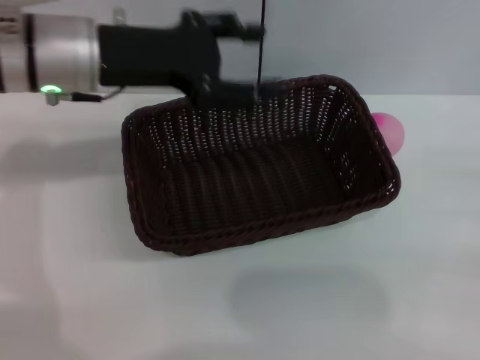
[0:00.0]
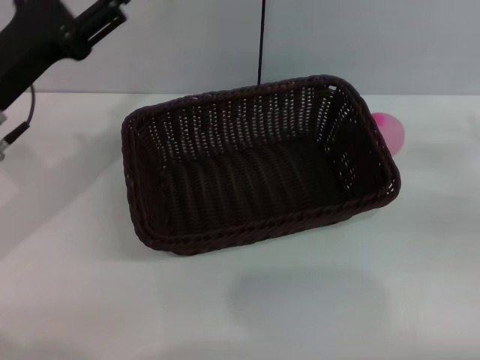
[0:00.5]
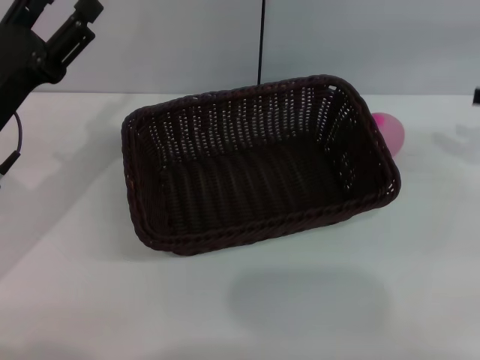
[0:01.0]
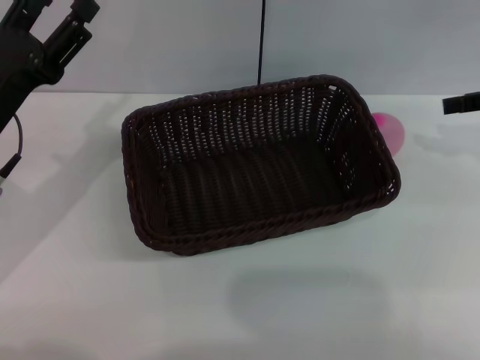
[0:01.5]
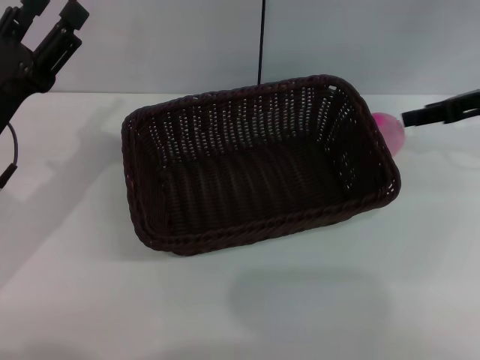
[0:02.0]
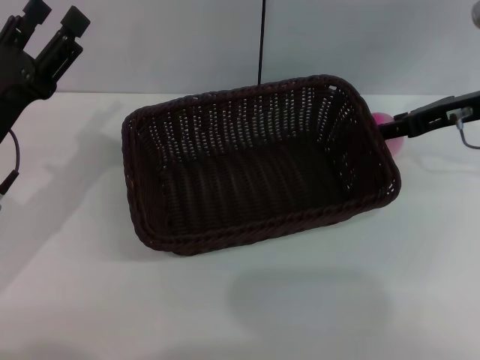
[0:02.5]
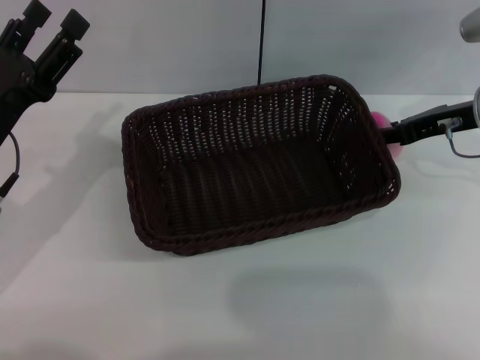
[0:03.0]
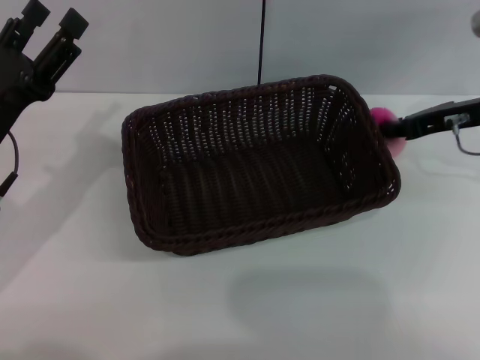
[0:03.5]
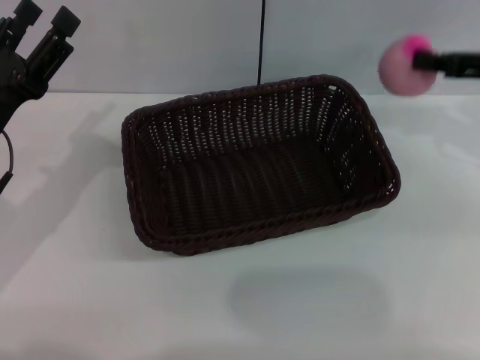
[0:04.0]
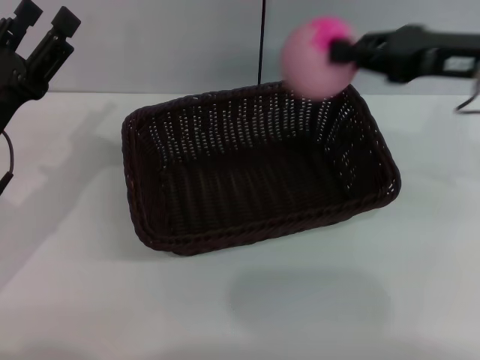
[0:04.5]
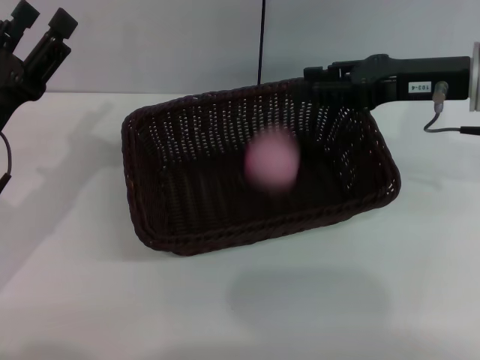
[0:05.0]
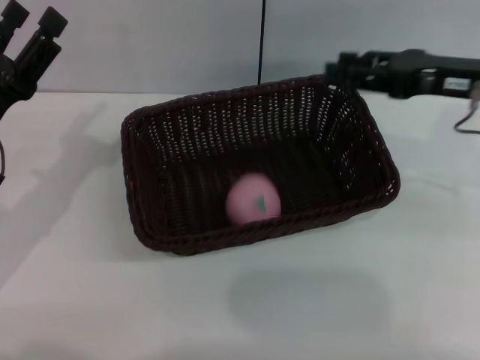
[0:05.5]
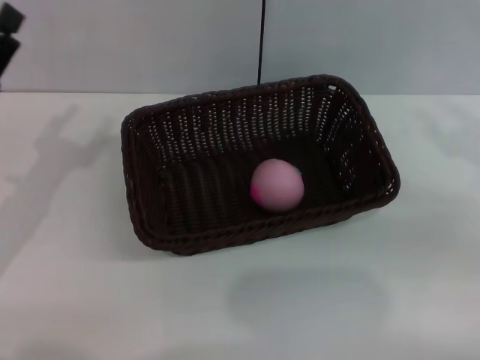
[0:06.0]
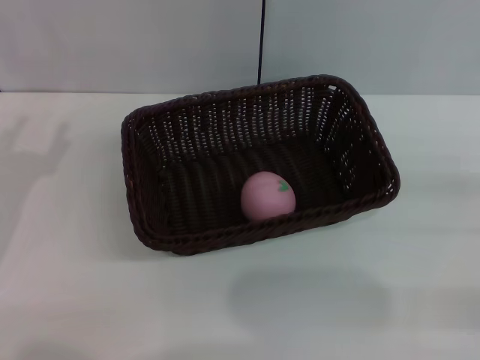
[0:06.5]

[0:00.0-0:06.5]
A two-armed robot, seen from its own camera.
Step, 0:00.0 to 0:04.0: Pick up the peach with the left gripper.
0:00.0 to 0:02.0: The right gripper heads forward, upward and to the left, covering about 20 cm; the left gripper travels downward, to the left and backward by some 15 cm.
0:02.0 to 0:04.5: The right gripper goes roughly 5 cm to the left, and closes its fingers.
0:04.5 to 0:06.5: The right gripper is displaced to the right, backward and downward by some 25 cm, and opens up. The left gripper shifts by approximately 5 cm.
